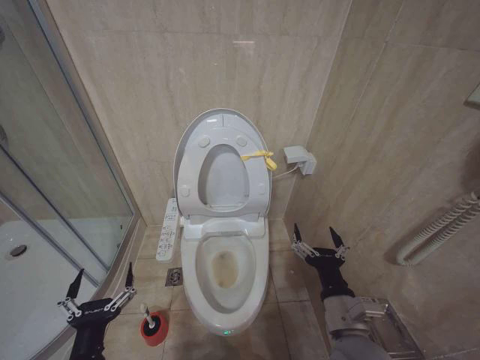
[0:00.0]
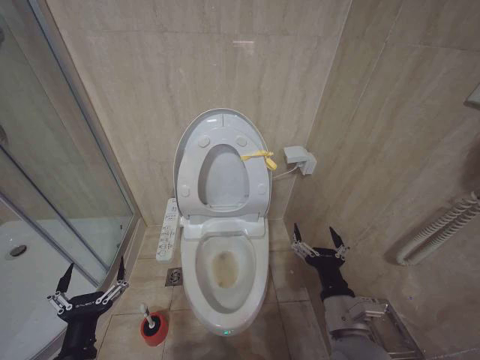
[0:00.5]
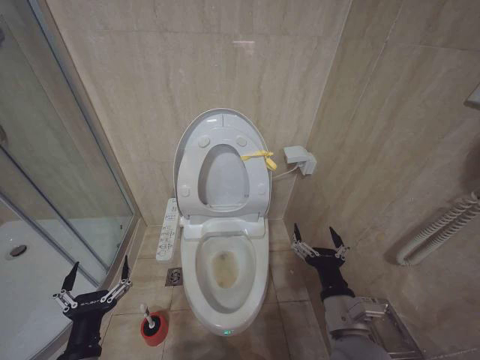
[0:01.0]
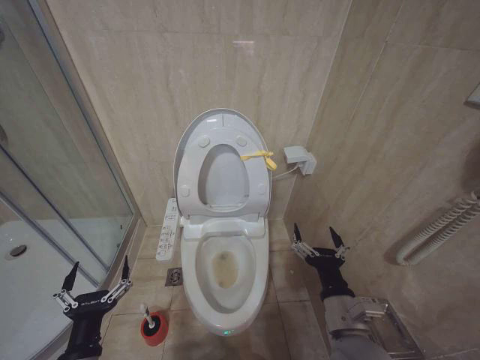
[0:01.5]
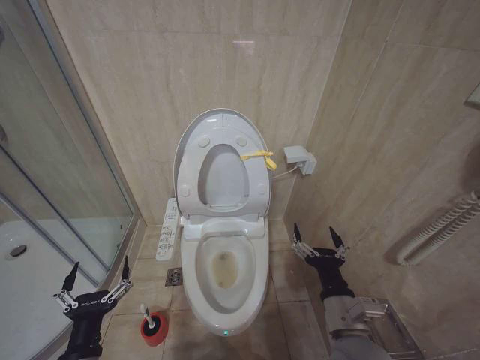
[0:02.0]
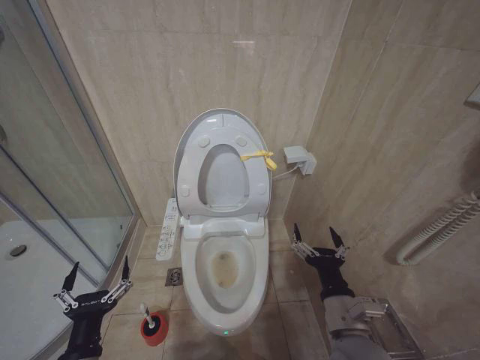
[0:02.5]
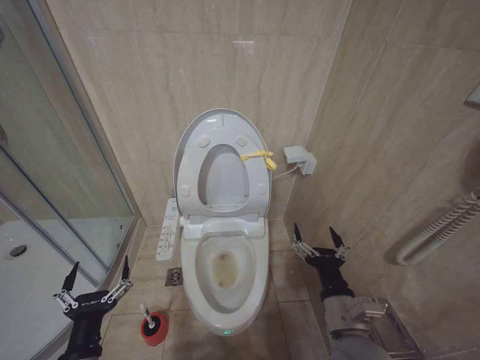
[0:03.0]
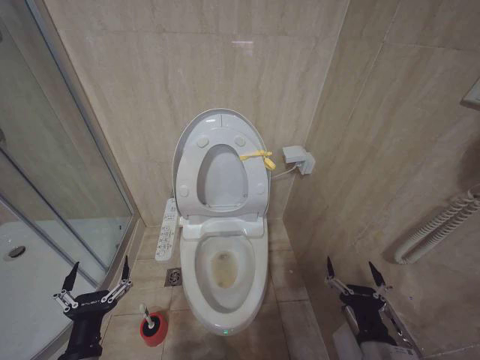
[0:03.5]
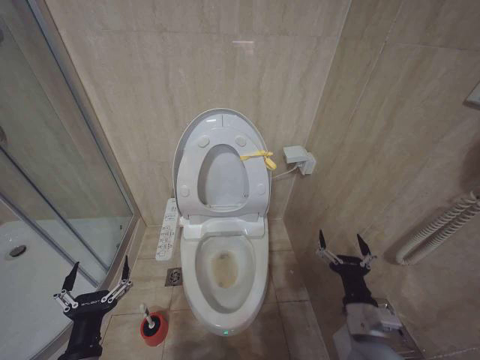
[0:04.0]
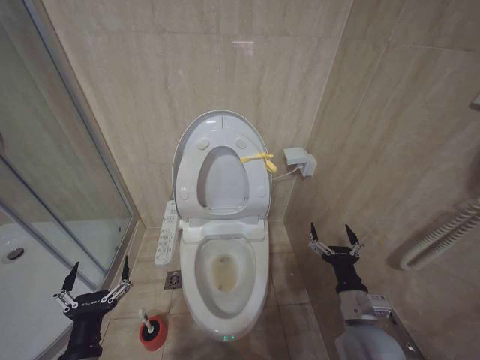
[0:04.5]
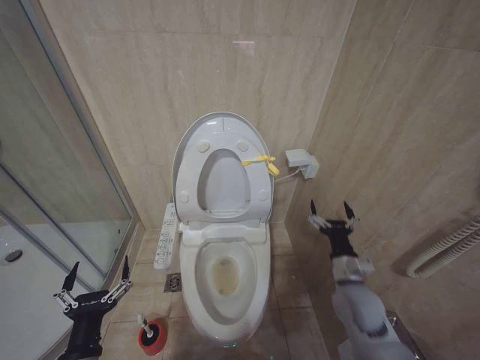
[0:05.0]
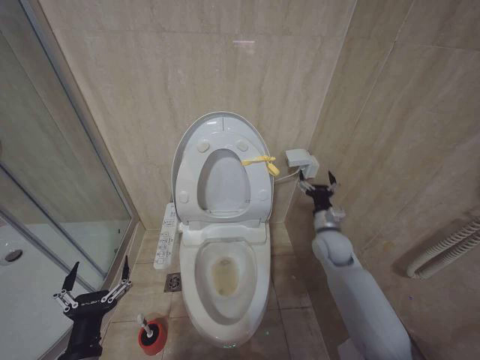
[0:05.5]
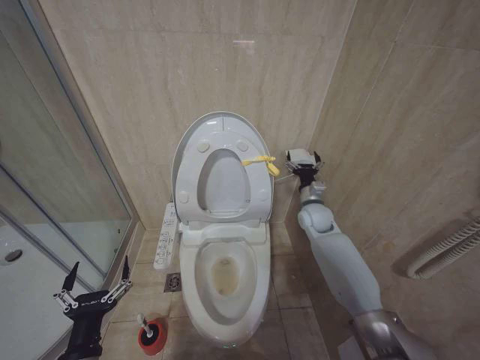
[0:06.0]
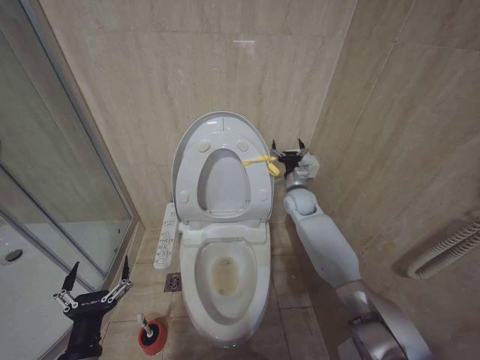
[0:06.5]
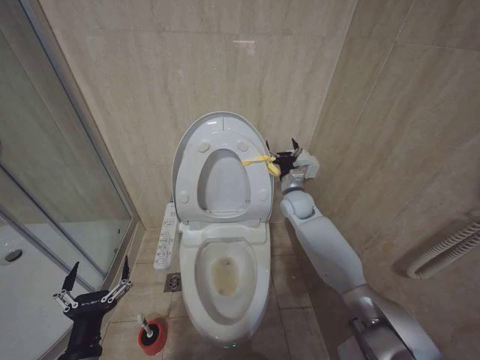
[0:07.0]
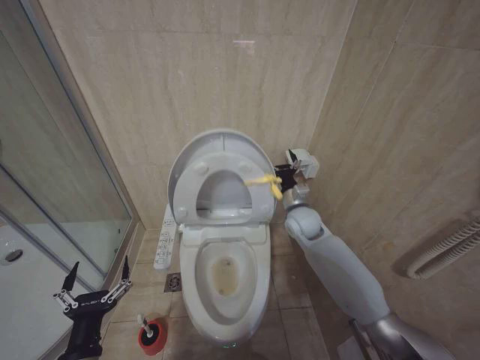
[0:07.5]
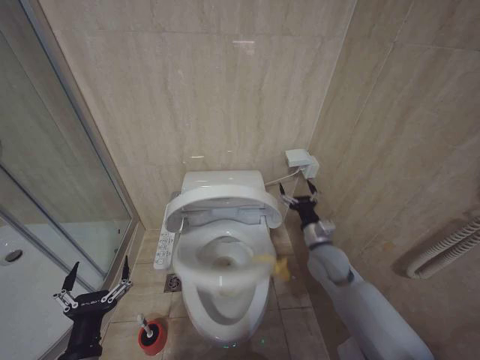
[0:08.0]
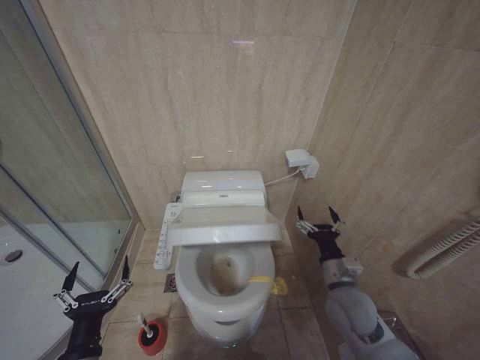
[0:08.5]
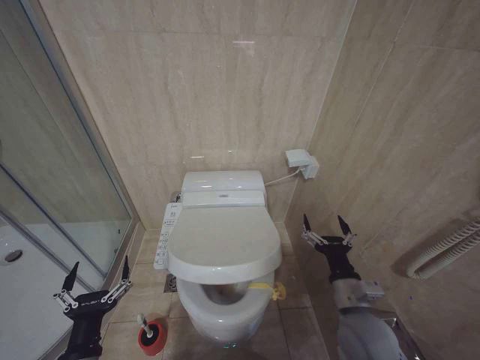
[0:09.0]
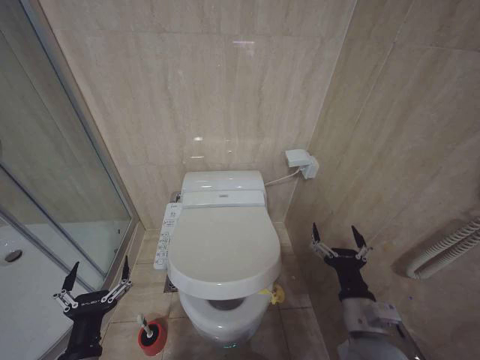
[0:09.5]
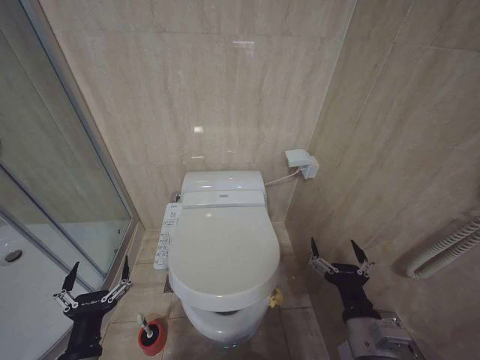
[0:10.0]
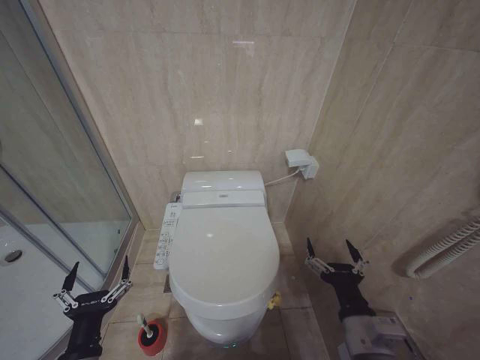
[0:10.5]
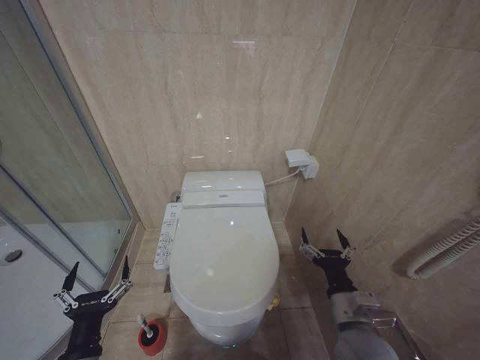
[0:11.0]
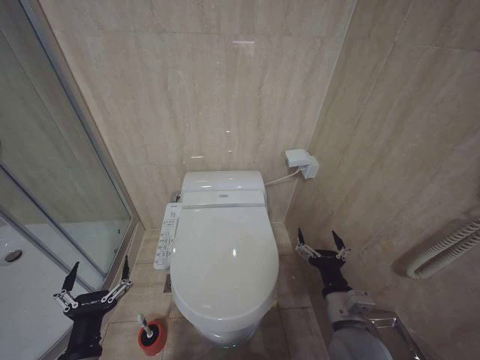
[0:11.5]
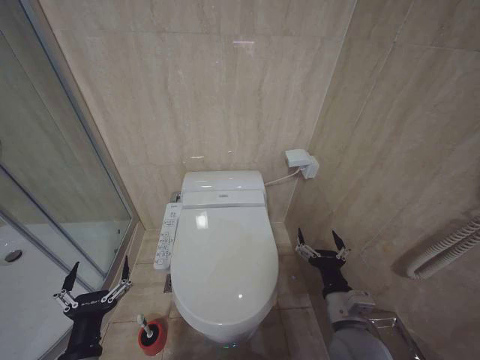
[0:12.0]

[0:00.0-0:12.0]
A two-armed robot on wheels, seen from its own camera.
Task of the whole recording: Open the toilet lid, clean the toilet bowl with a toilet brush, close the toilet lid, and flush.
0:00.0 to 0:02.0: The grippers make only small movements.
0:02.0 to 0:04.0: The right gripper shifts some 5 cm downward.
0:04.0 to 0:06.0: The right gripper heads forward, covering about 35 cm.
0:06.0 to 0:08.0: The right gripper is displaced backward by about 10 cm.
0:08.0 to 0:10.0: The right gripper travels backward by some 25 cm.
0:10.0 to 0:12.0: The right gripper shifts about 5 cm forward.

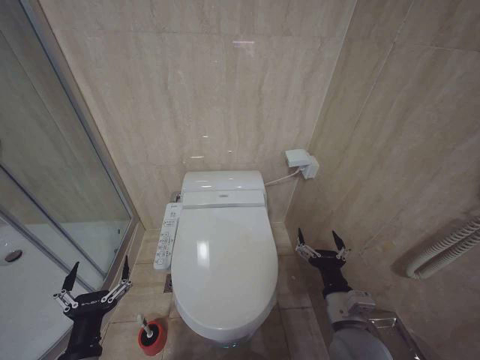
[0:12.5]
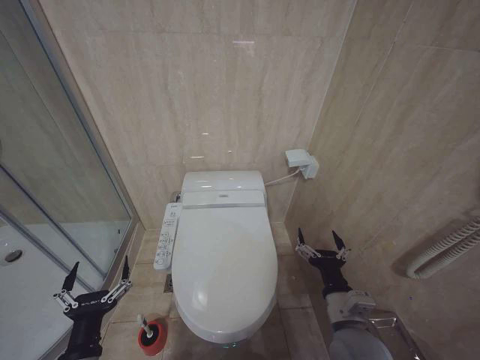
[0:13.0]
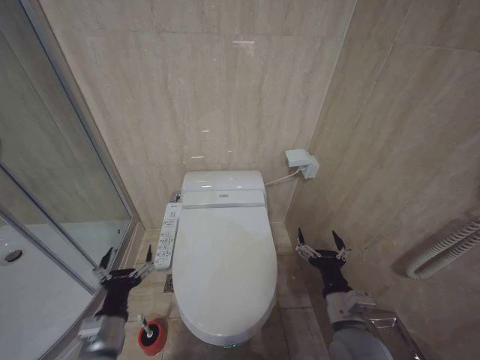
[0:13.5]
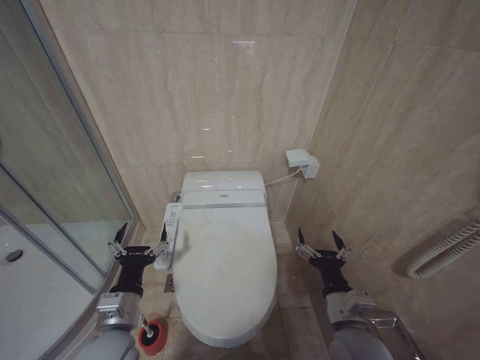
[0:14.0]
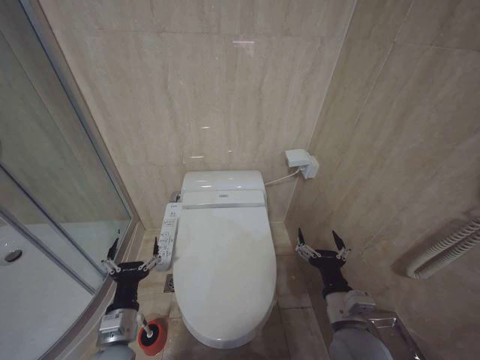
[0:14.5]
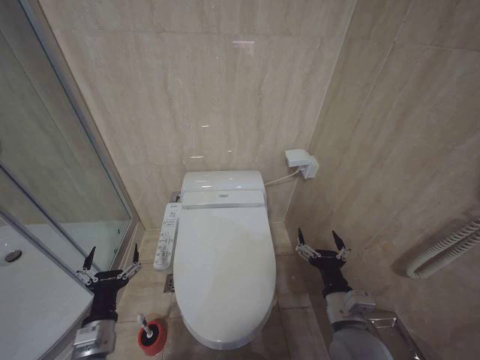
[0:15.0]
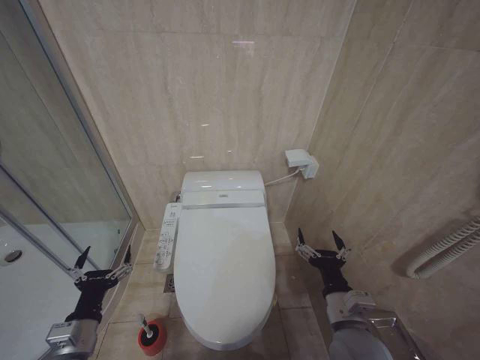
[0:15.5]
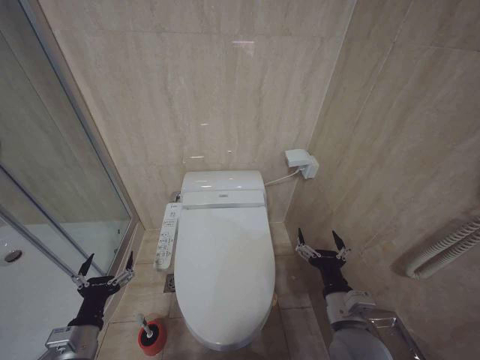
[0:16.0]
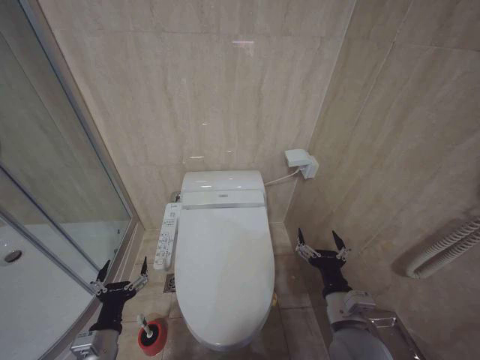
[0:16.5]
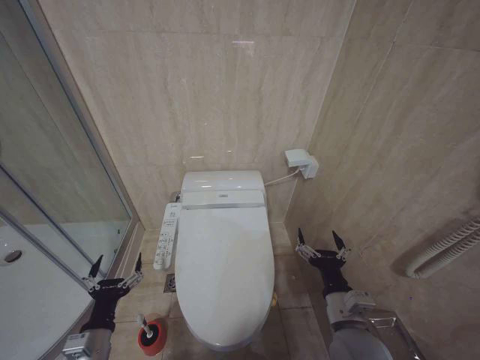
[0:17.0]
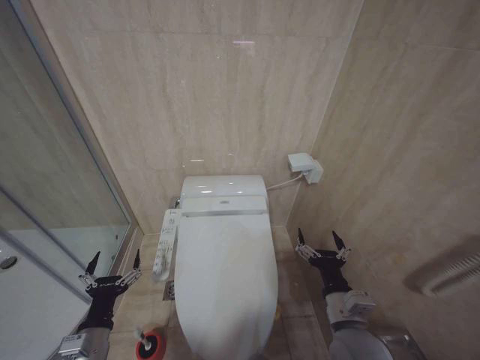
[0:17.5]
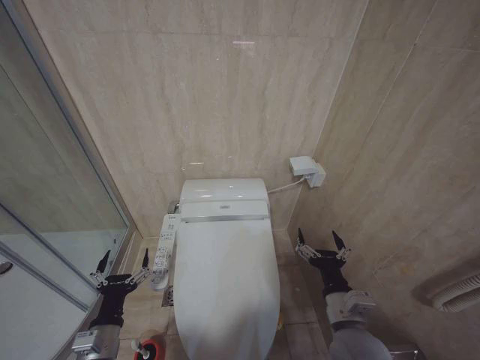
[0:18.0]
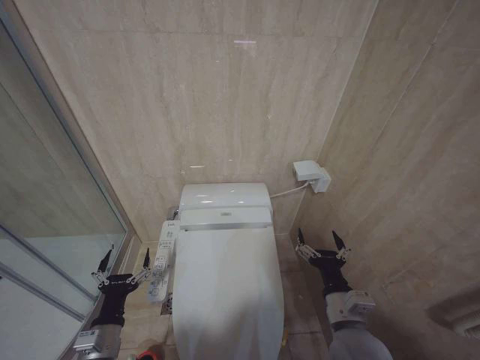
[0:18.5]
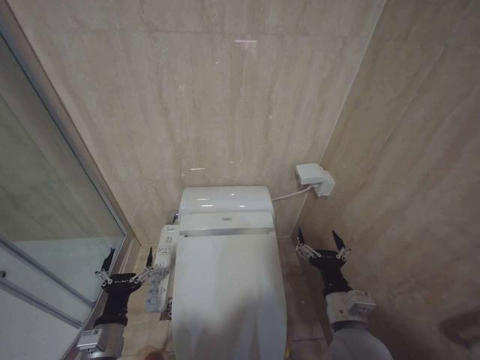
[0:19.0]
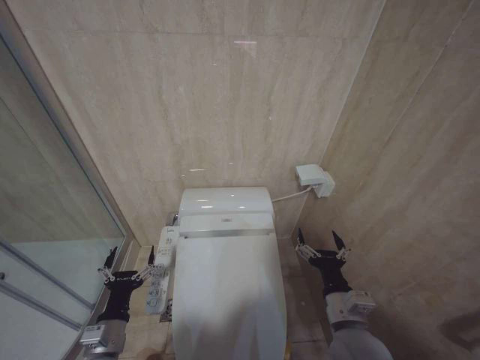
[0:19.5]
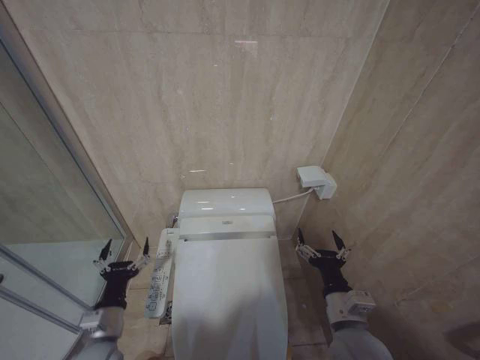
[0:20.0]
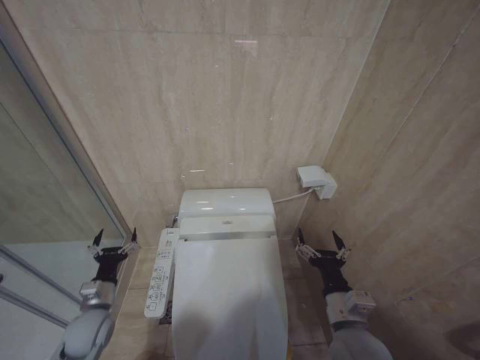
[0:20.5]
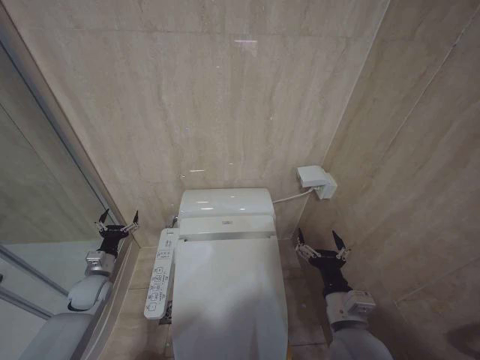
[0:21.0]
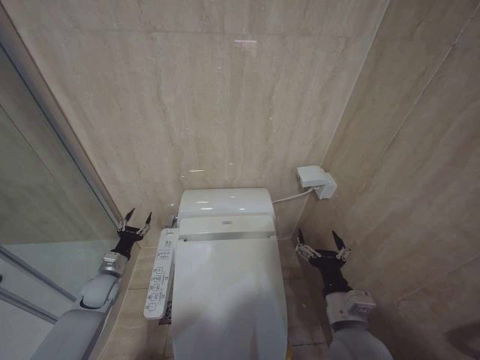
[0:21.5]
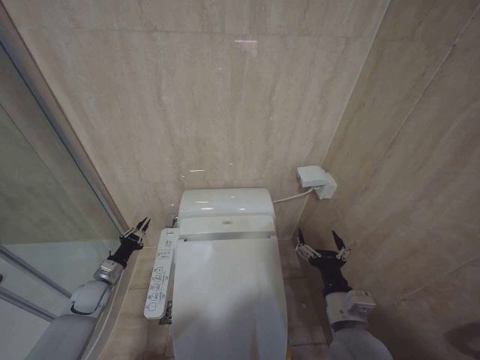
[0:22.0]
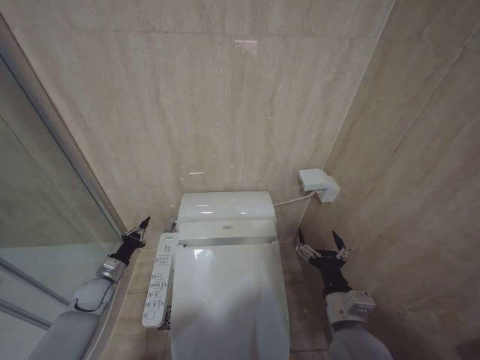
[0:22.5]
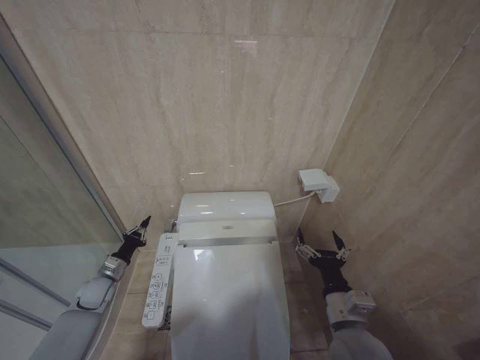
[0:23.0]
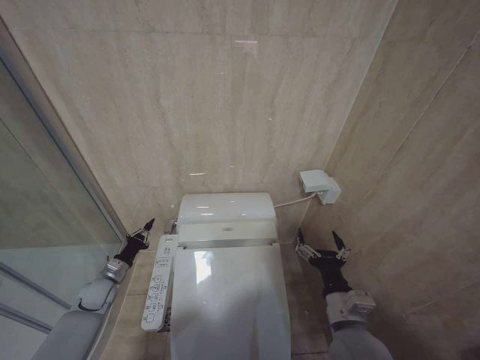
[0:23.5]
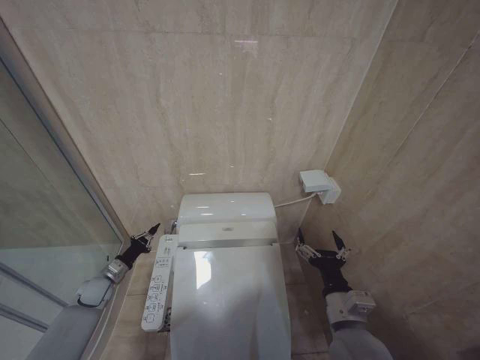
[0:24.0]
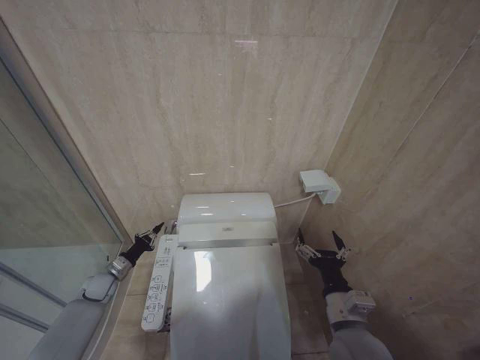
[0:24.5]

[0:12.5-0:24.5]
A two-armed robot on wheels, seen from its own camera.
Task of the whole recording: Open the toilet lid, clean the toilet bowl with a toilet brush, close the toilet lid, and flush.
0:12.5 to 0:14.5: The left gripper is displaced forward by approximately 10 cm.
0:14.5 to 0:16.5: The left gripper changes place by roughly 5 cm.
0:16.5 to 0:18.5: The grippers stay close to where they were, moving slightly.
0:18.5 to 0:20.5: The left gripper is displaced forward and to the left by some 10 cm.
0:20.5 to 0:22.5: The left gripper heads forward and to the left, covering roughly 15 cm, and closes up.
0:22.5 to 0:24.5: The grippers make only small movements.

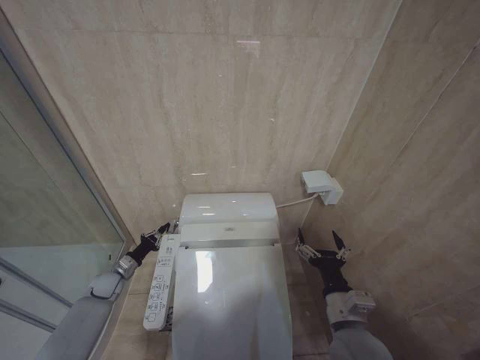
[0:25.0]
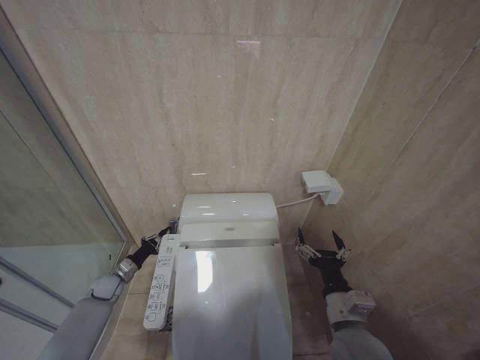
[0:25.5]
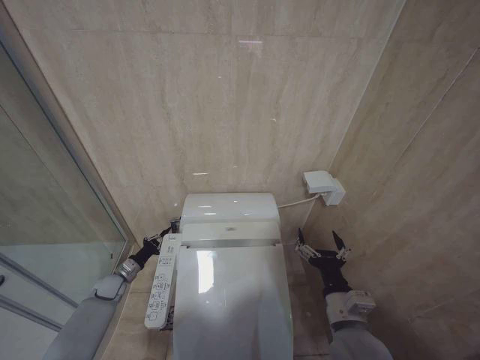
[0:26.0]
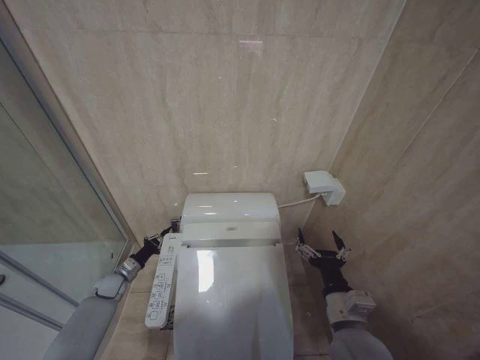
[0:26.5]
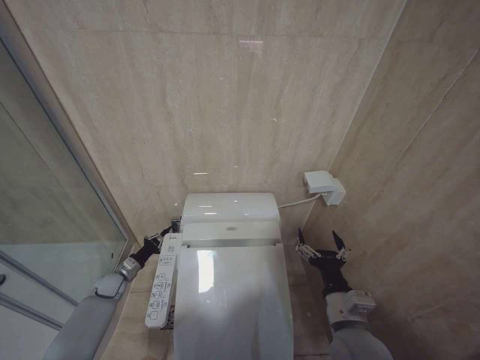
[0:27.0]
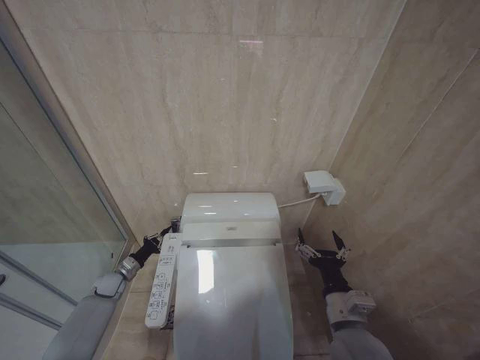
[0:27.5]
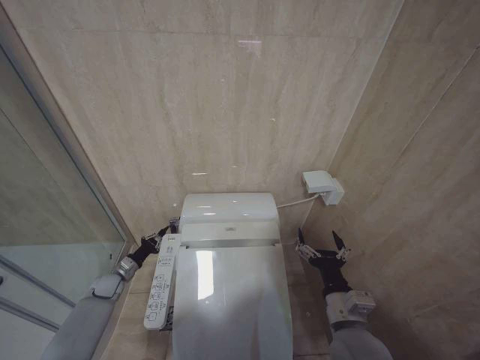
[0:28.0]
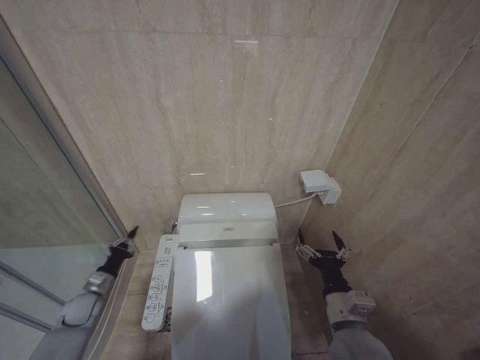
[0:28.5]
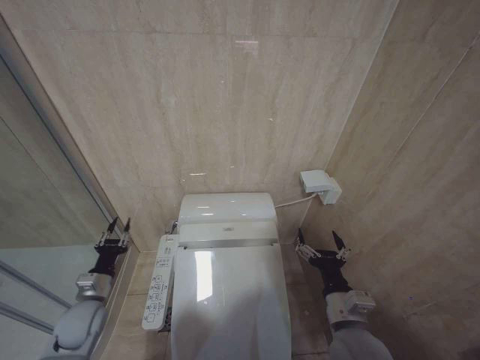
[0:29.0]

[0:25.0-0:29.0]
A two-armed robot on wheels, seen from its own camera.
Task of the whole recording: Open the toilet lid, clean the toilet bowl with a toilet brush, close the toilet lid, and flush.
0:25.0 to 0:27.0: The grippers stay close to where they were, moving slightly.
0:27.0 to 0:29.0: The left gripper travels backward and upward by roughly 15 cm.
